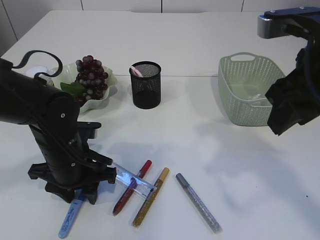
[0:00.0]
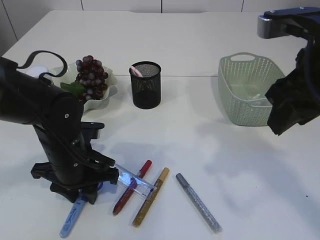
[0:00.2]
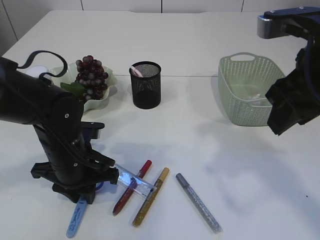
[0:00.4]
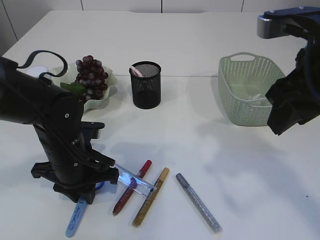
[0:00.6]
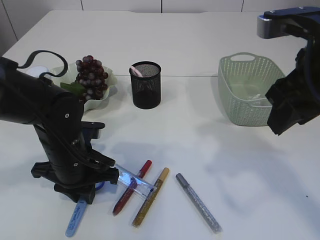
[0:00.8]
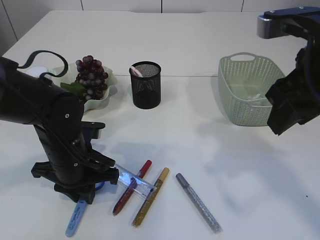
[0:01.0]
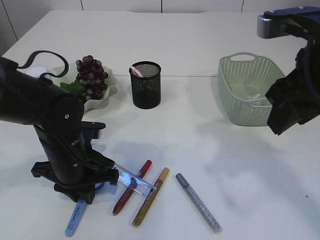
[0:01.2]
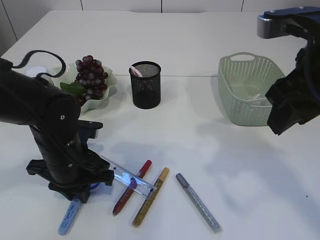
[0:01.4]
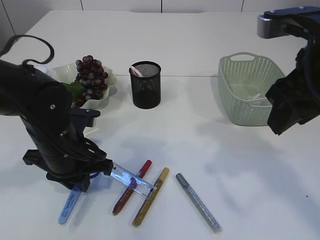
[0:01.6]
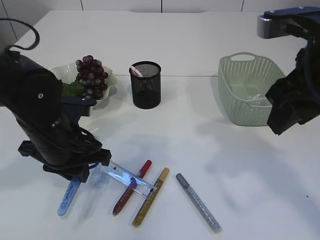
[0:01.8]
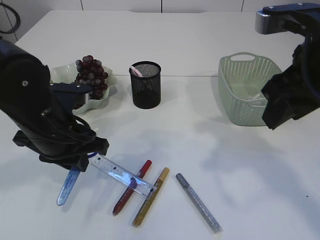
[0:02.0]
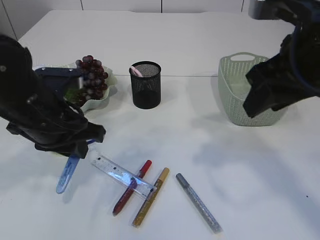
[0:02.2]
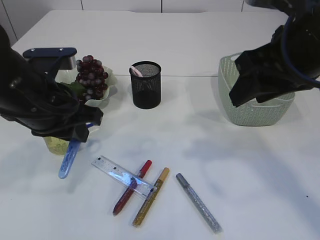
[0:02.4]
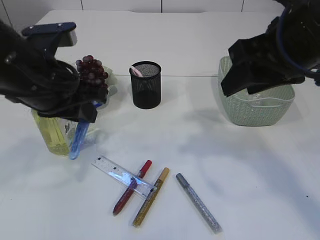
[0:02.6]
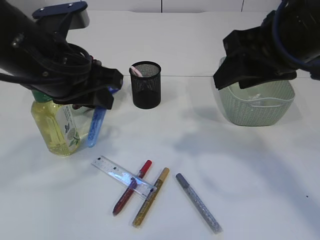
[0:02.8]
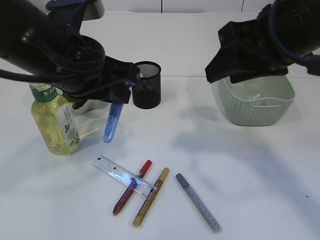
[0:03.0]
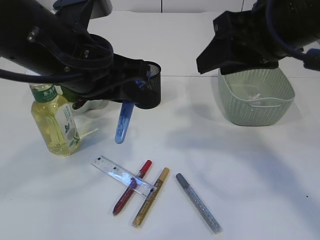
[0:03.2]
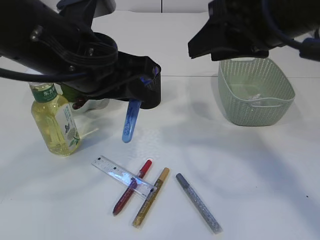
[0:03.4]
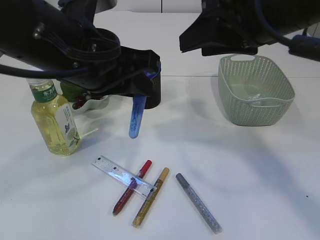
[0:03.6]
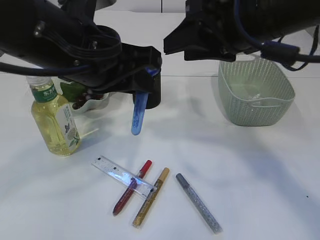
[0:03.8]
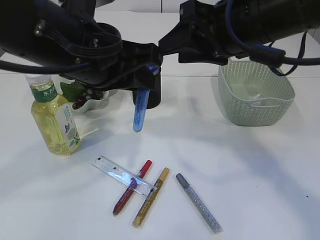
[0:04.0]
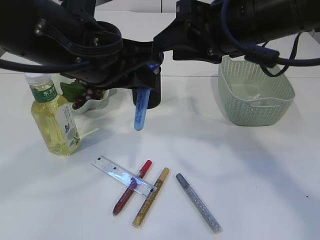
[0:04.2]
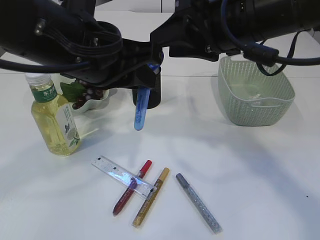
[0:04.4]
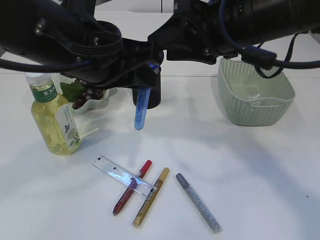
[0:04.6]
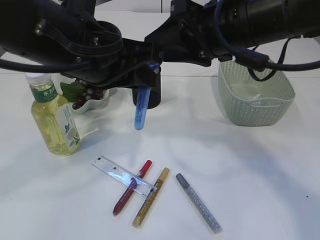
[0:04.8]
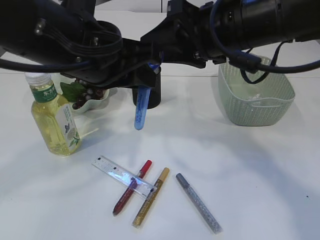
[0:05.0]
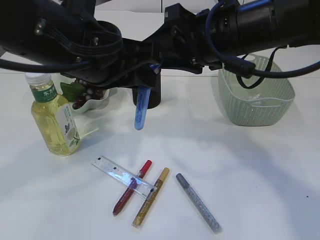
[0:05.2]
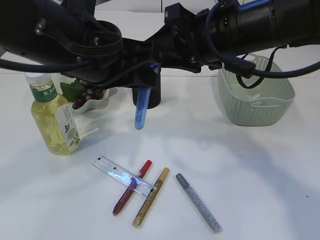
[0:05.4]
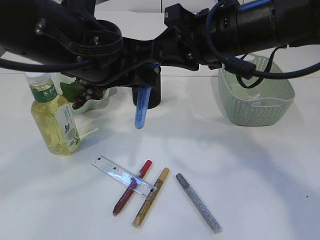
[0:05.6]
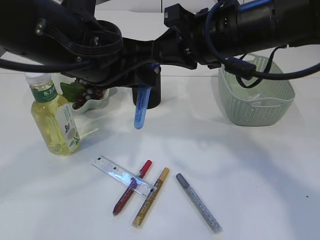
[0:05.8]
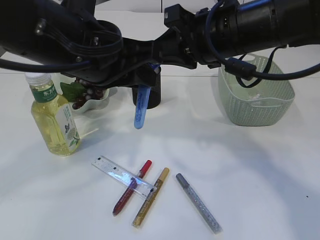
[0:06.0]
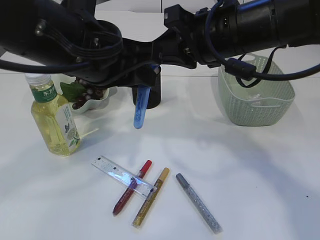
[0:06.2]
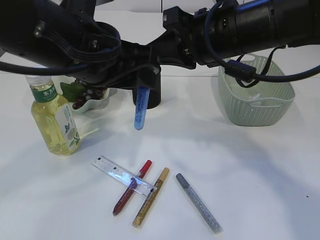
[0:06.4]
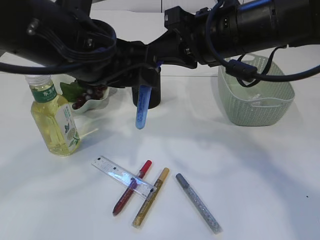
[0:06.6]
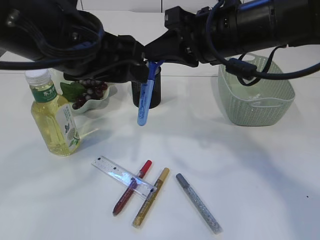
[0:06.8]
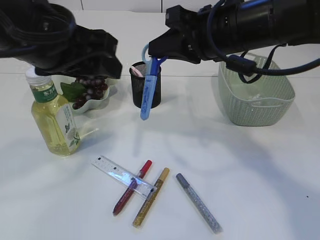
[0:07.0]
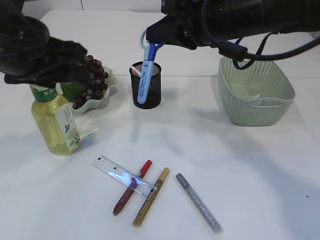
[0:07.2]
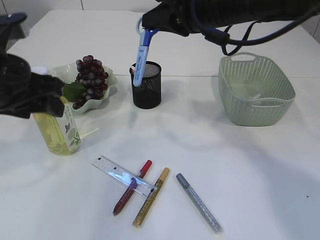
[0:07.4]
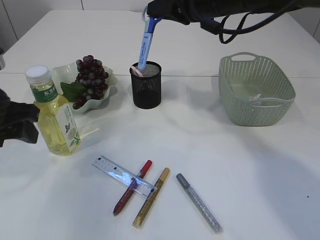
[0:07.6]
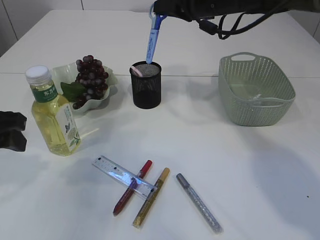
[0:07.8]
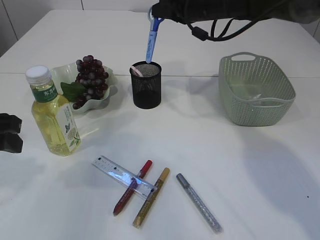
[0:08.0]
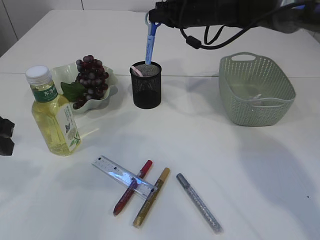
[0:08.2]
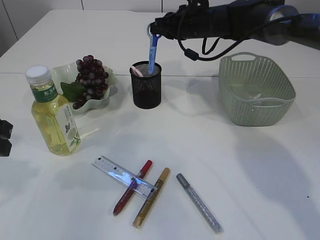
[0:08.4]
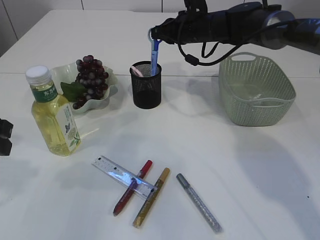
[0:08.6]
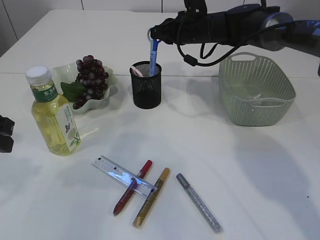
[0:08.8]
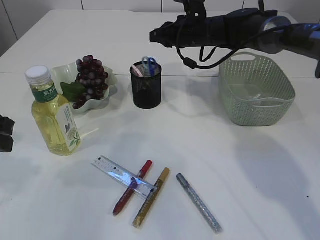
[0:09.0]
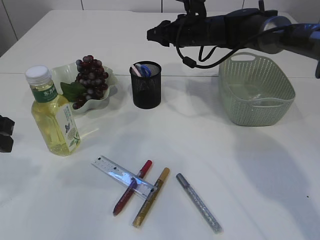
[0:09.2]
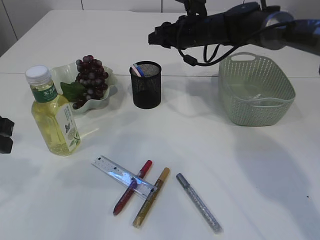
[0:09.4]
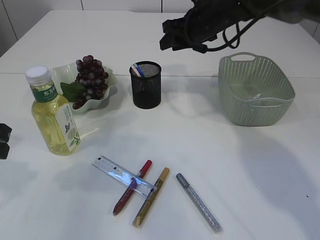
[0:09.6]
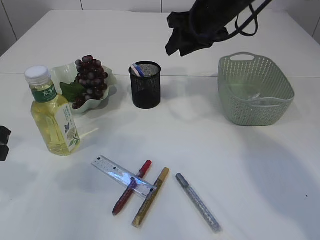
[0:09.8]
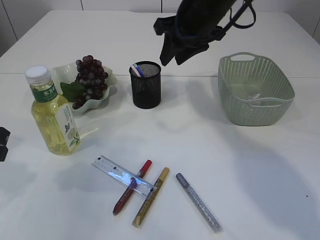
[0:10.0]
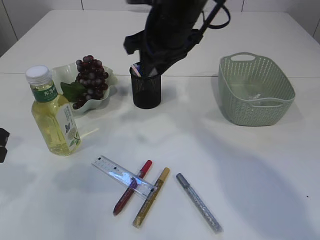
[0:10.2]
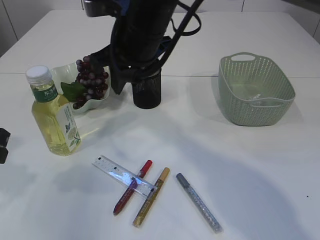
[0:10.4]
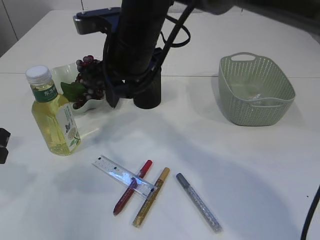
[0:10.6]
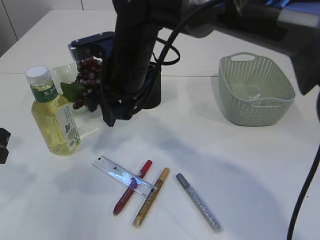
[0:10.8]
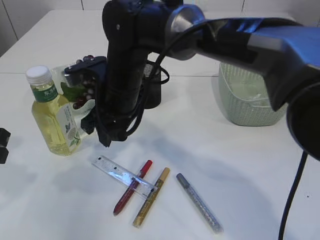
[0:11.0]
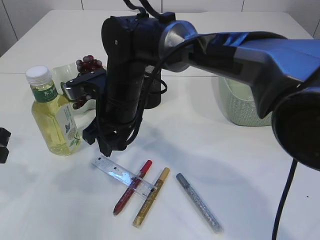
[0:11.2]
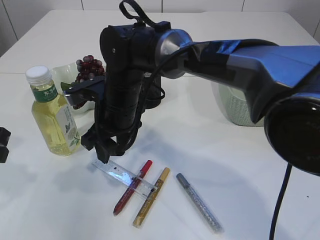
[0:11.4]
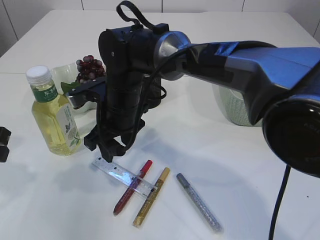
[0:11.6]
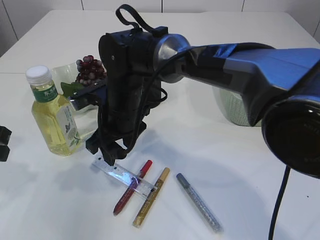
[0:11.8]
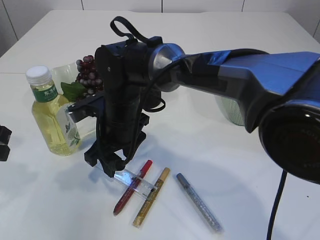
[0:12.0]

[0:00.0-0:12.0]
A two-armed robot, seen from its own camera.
Step, 0:00.0 to 0:02.0: pick up the blue scissors.
Step, 0:02.2 to 0:07.2: Hand over the blue scissors.
Step, 0:07.4 to 0:09.6: Place the blue scissors into the pen holder.
0:00.0 to 0:01.6: The left gripper closes.
0:01.6 to 0:03.0: The left gripper shifts approximately 15 cm upward.
0:03.0 to 0:04.4: The right gripper changes place by approximately 5 cm.
0:04.4 to 0:06.0: The right gripper closes.
0:06.0 to 0:07.6: The right gripper goes some 10 cm forward. Meanwhile the left gripper travels to the left and downward by roughly 15 cm, and opens up.
0:07.6 to 0:09.0: The right gripper is displaced forward and downward by some 15 cm.
0:09.0 to 0:10.4: The right gripper shifts about 20 cm backward, to the left and upward.
0:10.4 to 0:12.0: The right gripper is displaced downward by about 15 cm.

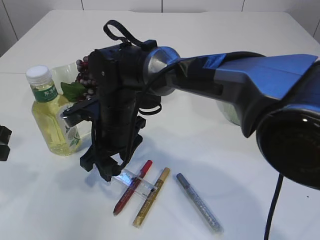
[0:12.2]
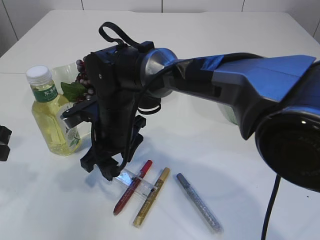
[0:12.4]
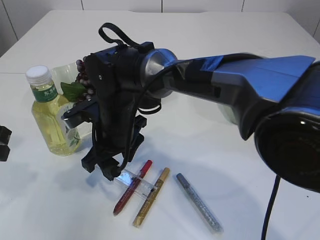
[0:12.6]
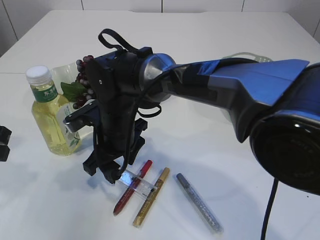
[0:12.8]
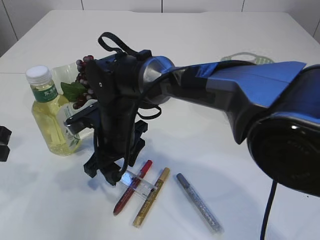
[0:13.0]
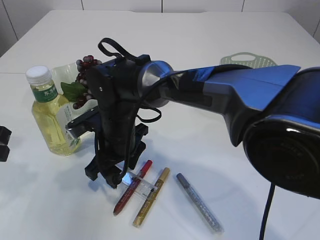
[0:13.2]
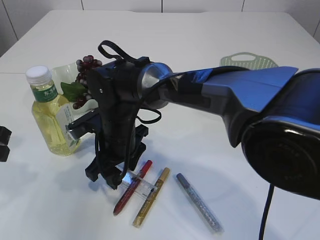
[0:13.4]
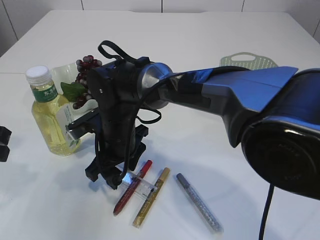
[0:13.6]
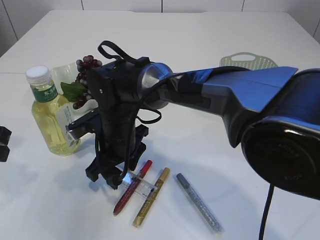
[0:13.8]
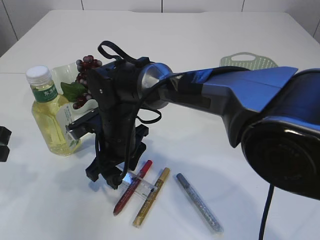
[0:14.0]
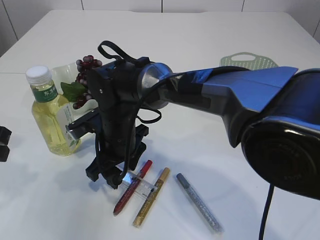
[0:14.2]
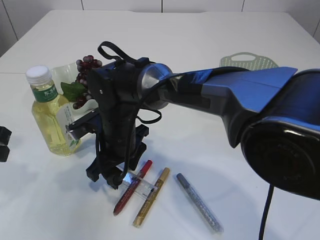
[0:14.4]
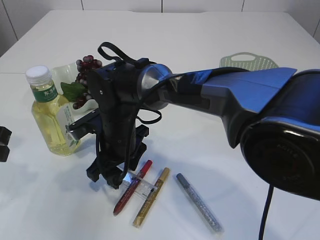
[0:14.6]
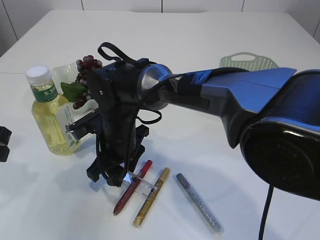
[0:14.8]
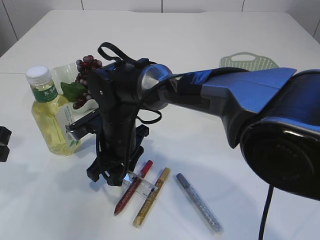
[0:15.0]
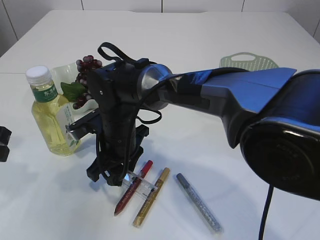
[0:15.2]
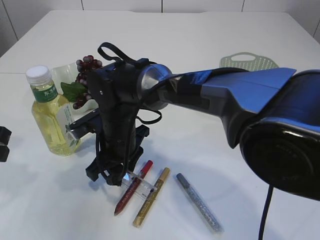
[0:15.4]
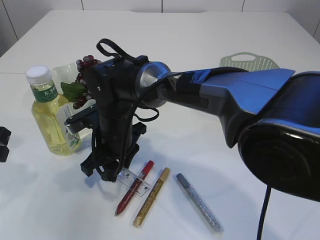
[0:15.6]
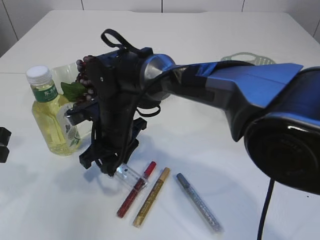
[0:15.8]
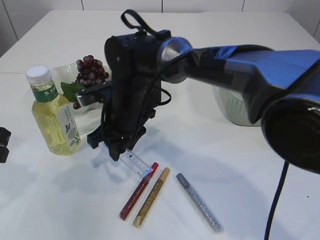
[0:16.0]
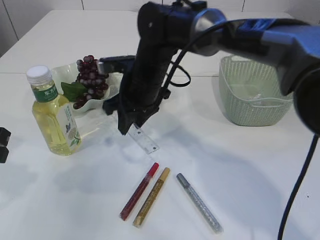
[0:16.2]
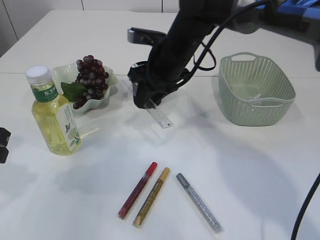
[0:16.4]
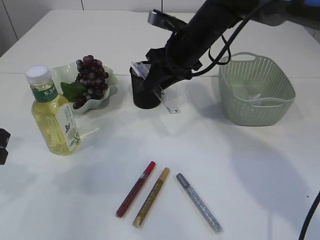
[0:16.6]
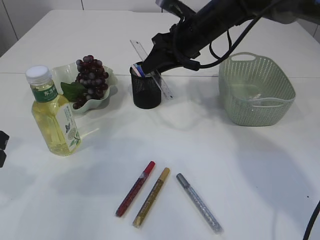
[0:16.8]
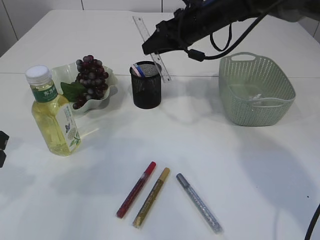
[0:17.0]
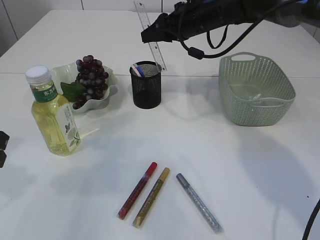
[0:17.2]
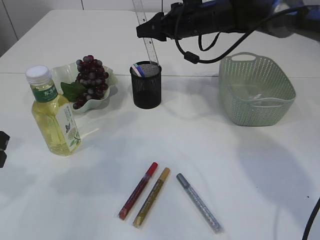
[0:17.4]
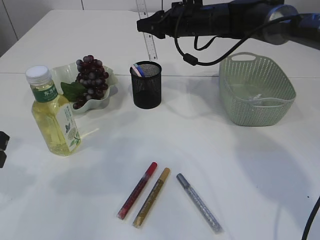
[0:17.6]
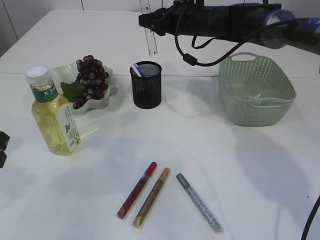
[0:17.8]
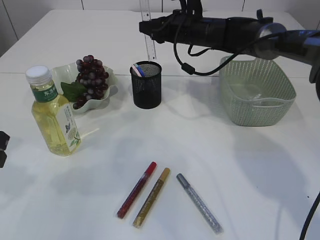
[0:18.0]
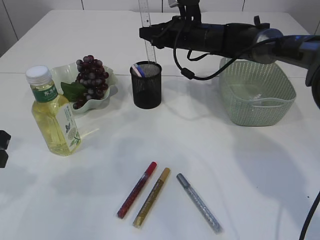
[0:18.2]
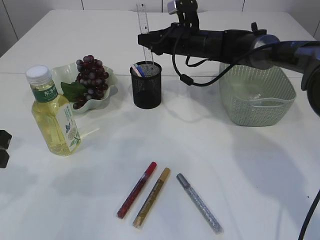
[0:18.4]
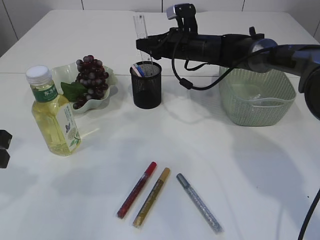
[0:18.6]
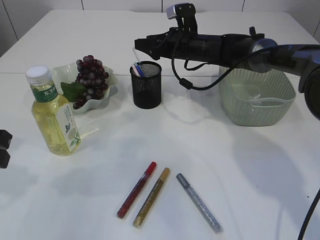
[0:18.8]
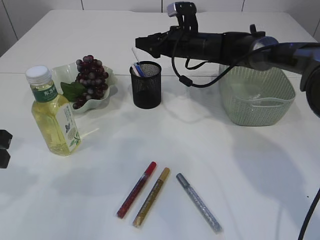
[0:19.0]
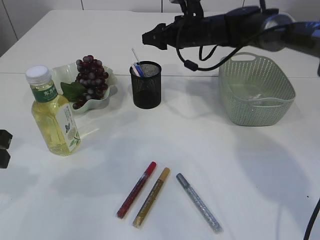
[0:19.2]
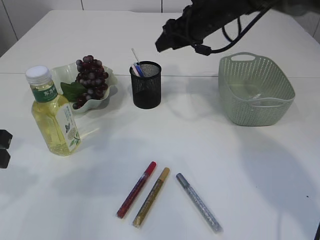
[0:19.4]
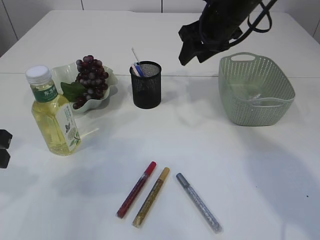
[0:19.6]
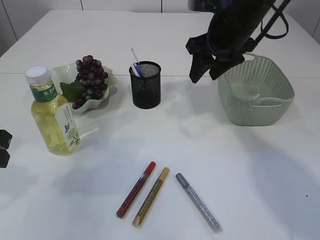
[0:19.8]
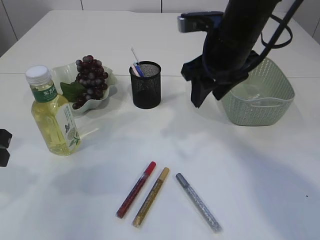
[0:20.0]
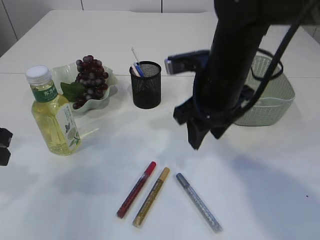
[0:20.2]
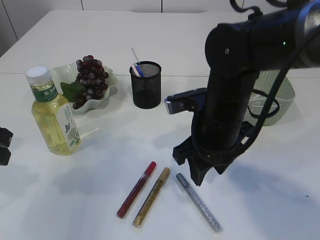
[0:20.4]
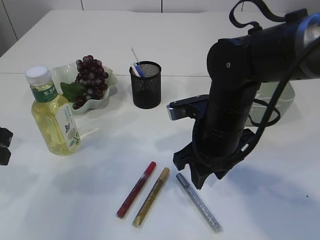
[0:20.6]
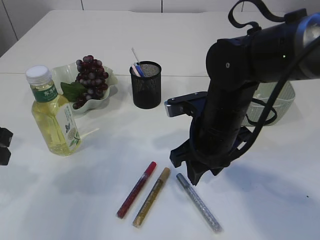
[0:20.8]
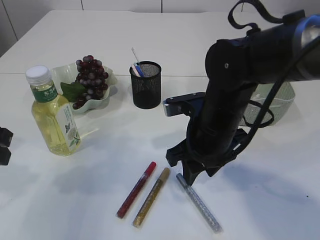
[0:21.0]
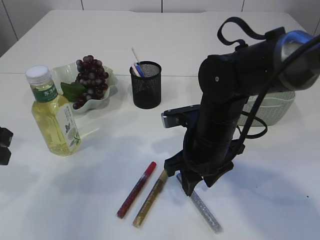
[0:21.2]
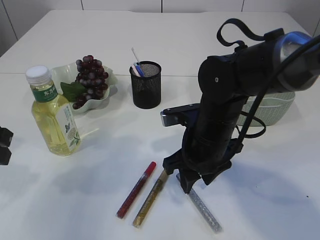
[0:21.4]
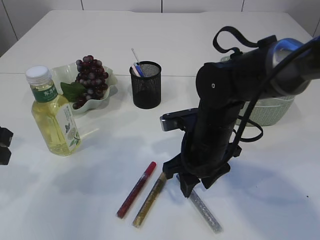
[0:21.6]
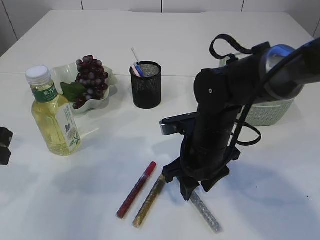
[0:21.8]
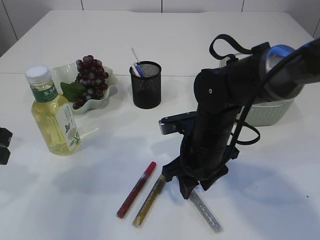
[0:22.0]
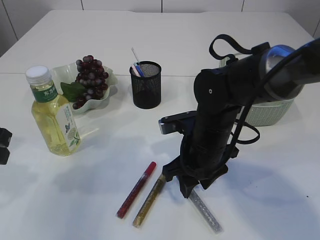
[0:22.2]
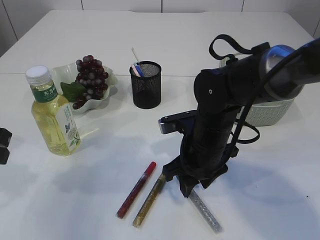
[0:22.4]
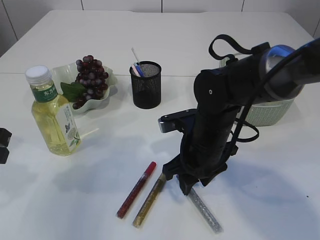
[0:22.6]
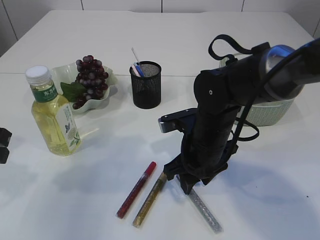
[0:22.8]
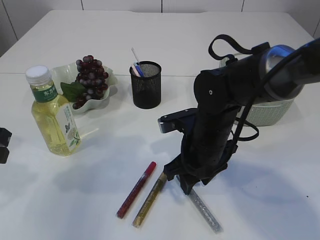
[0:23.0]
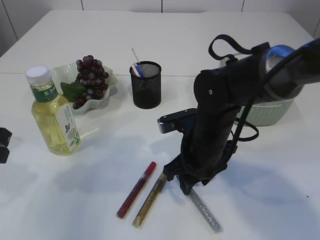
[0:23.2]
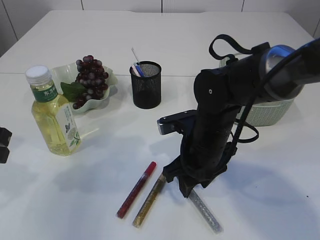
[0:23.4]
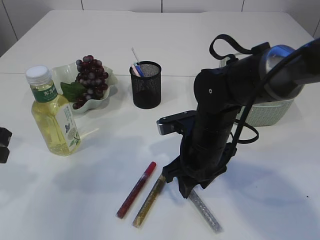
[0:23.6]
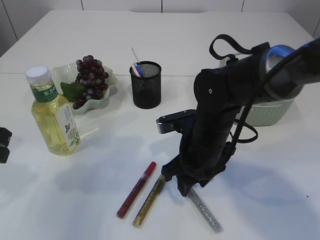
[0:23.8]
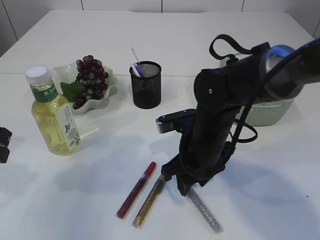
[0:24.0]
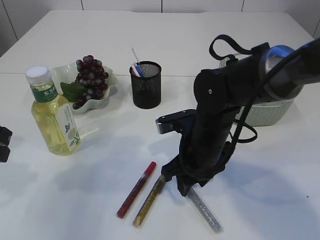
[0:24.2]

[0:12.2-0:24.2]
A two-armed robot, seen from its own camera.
Step, 0:12.2 to 0:16.0: pick up the ruler.
Step, 0:16.2 to 0:19.0: Place the ruler into the pen holder.
0:12.2 to 0:13.8: The grippers make only small movements.
0:13.8 to 0:15.2: Both grippers stay about where they are.
0:15.2 to 0:16.6: The right gripper is displaced to the right, upward and forward by roughly 20 cm.
0:16.6 to 0:18.2: The right gripper is displaced forward by some 10 cm.
0:18.2 to 0:19.8: The right gripper shifts some 15 cm backward and upward.
0:19.8 to 0:21.2: The right gripper heads downward, backward and to the left, covering roughly 20 cm.
0:21.2 to 0:22.6: The grippers stay close to where they were, moving slightly.
0:22.6 to 0:24.2: The two grippers keep their place.
